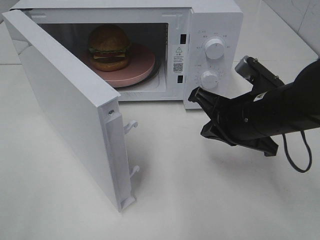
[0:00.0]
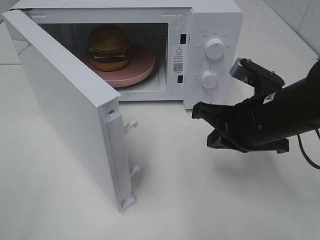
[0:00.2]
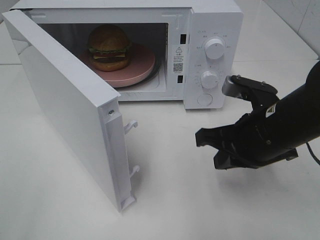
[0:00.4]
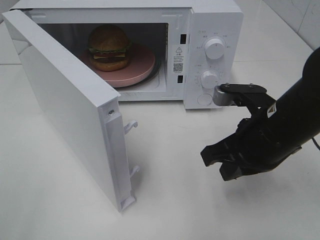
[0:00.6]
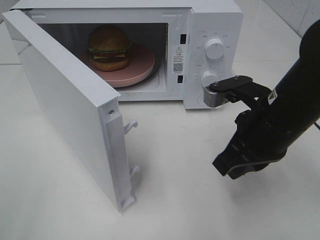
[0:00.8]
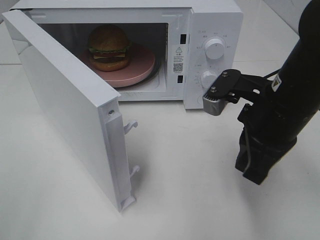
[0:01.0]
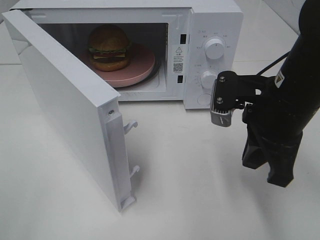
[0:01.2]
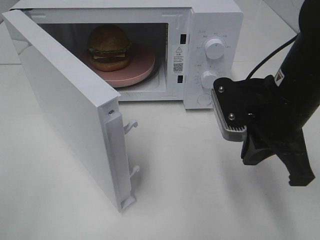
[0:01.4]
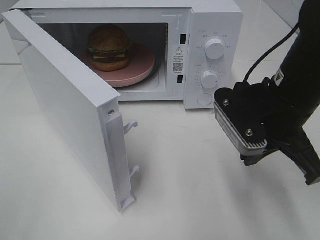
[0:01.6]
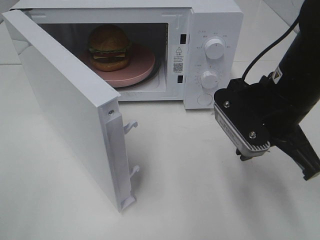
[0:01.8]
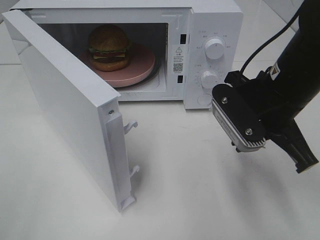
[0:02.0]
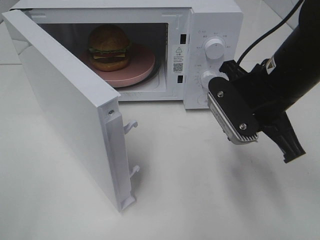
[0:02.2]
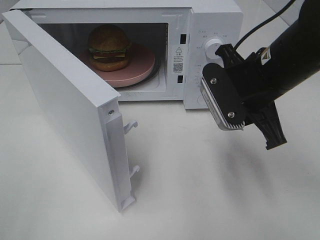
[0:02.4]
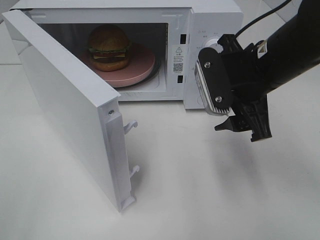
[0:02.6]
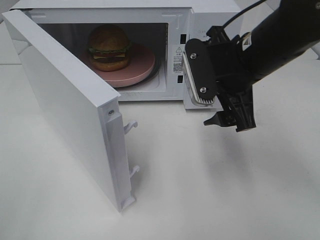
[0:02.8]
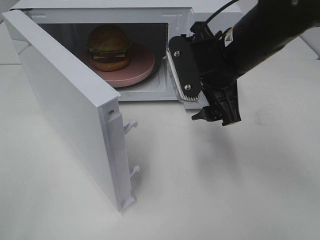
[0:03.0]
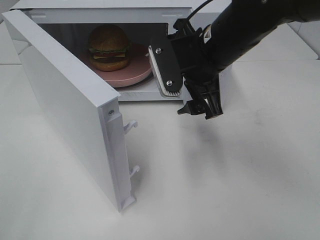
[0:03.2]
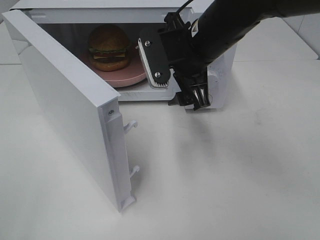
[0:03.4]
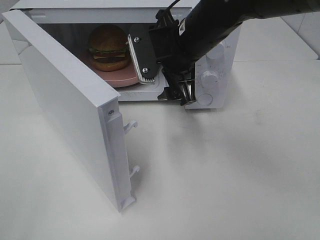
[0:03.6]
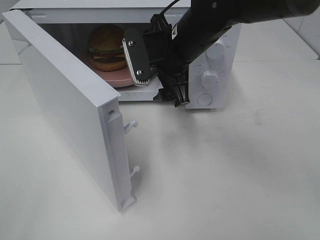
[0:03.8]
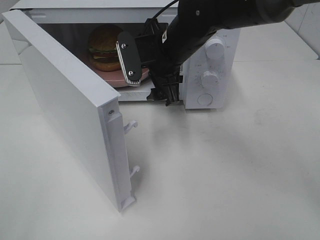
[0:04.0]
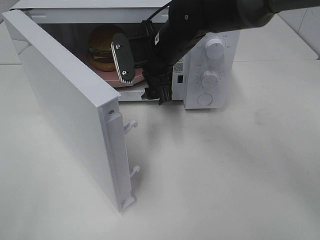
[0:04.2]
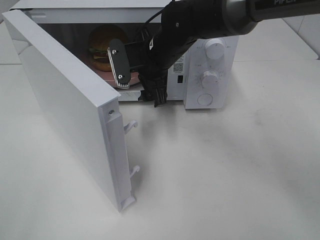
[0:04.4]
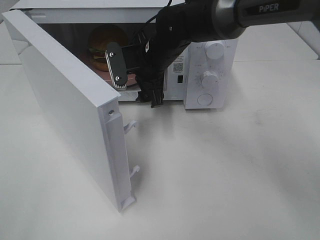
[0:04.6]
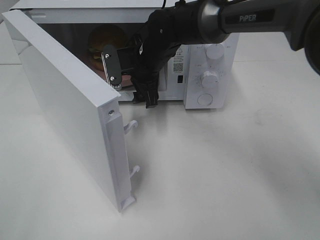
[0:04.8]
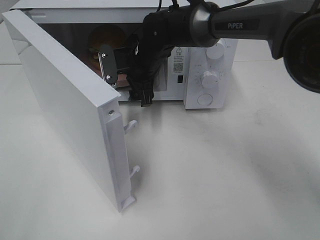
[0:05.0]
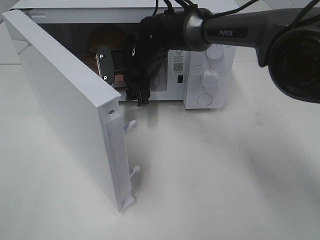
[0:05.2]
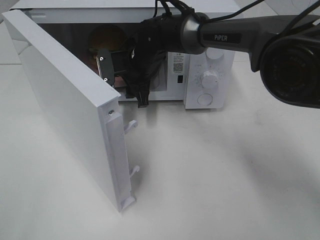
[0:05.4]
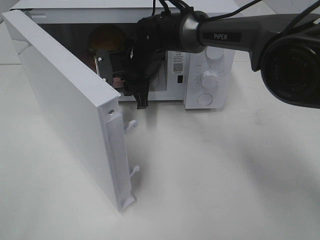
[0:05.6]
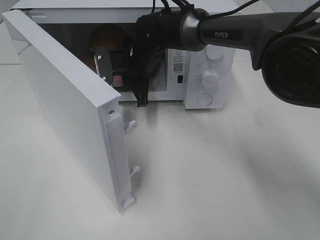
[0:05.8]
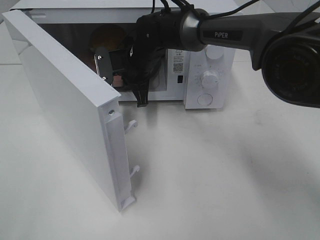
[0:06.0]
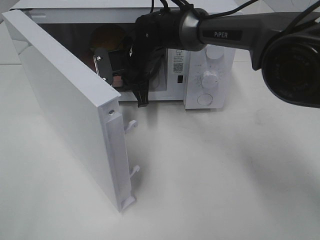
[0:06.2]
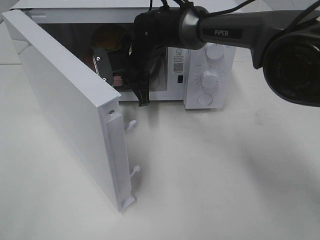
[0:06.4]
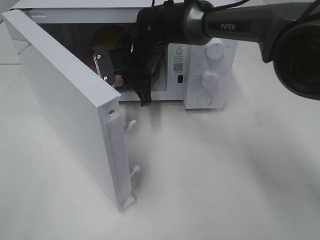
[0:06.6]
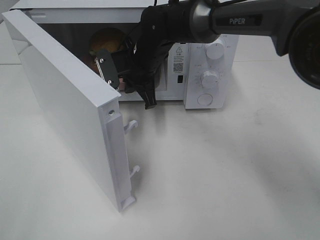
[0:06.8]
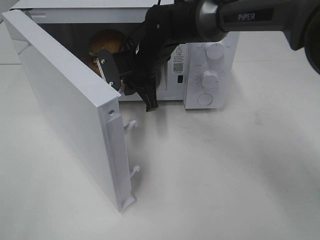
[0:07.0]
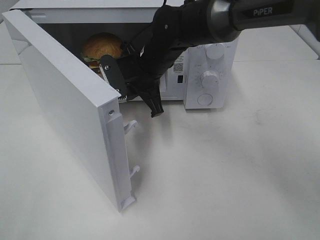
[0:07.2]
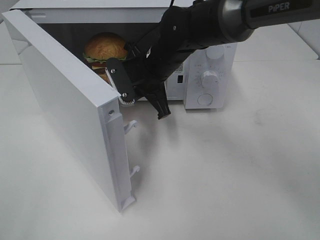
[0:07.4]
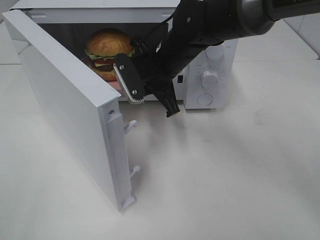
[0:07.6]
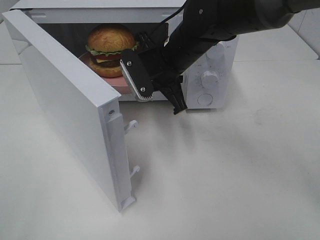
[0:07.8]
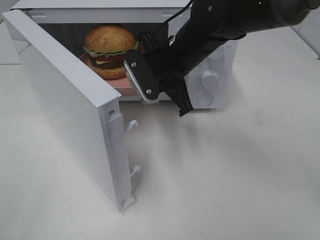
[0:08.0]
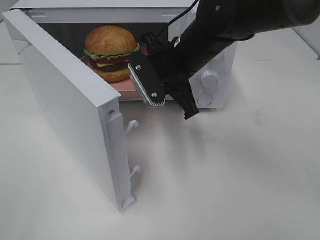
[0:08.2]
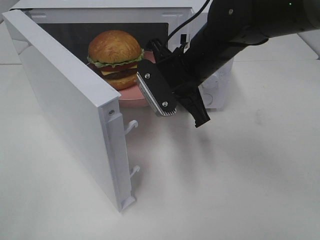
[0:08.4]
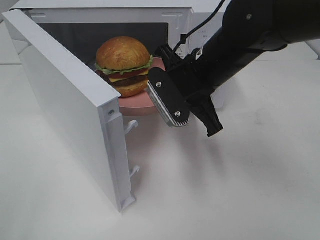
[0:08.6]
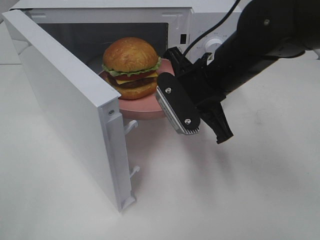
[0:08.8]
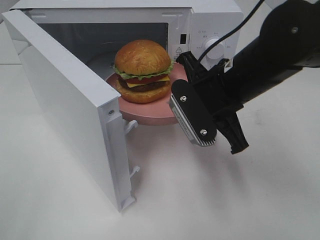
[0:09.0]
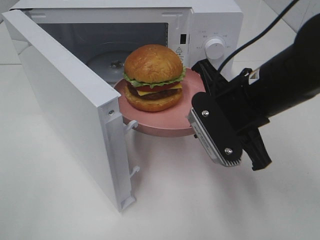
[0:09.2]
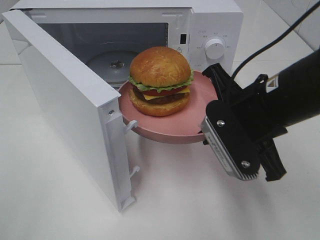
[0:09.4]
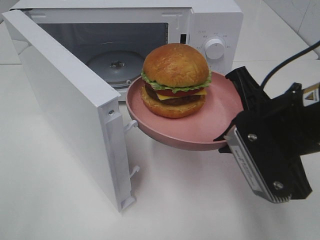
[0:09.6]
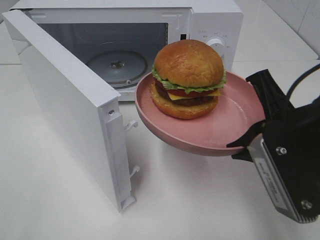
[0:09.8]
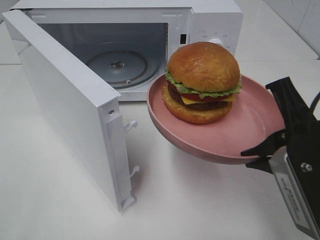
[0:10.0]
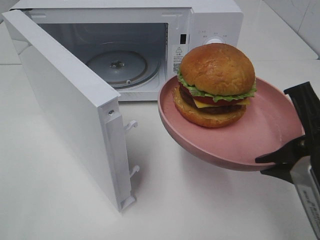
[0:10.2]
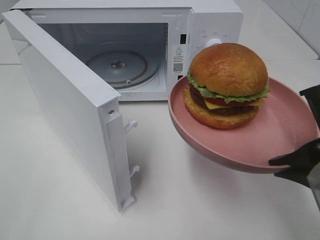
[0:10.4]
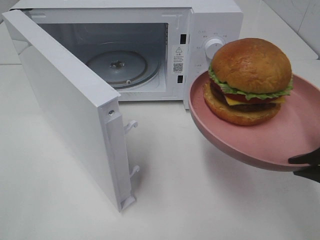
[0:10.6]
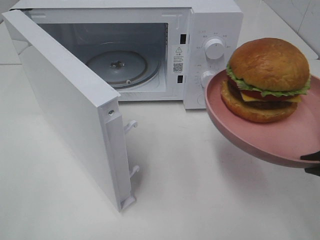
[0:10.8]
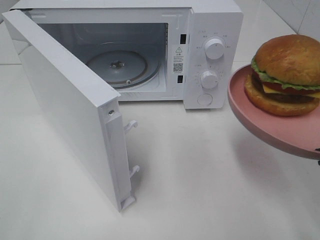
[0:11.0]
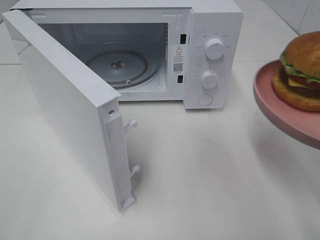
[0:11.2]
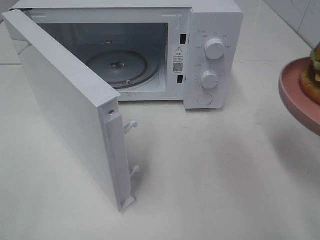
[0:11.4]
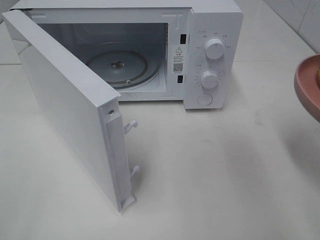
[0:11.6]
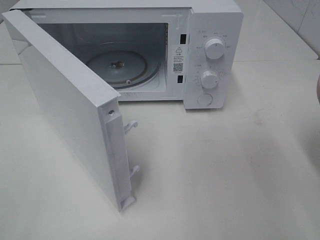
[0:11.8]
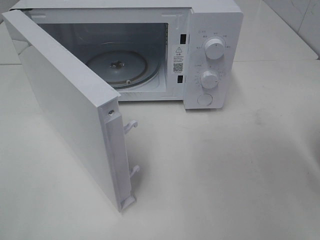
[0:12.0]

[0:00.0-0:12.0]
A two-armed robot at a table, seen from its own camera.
Task of the whole recording: Heat the burger.
Step, 0:00.0 to 0:05.6: Right hand: grab the plate with the hamburger.
0:01.6 to 0:03.0: The right gripper is displaced forward and to the left by some 10 cm, and opens up.
0:03.0 to 0:04.4: The right gripper heads forward, to the left and downward, covering approximately 15 cm.
0:04.4 to 0:06.0: The right gripper changes place by about 5 cm, and closes.
0:06.0 to 0:07.6: The right gripper shifts roughly 5 cm backward.
0:07.6 to 0:09.0: The right gripper moves backward and to the right, about 15 cm.
0:09.0 to 0:10.4: The right gripper travels backward and to the right by approximately 20 cm.
0:10.4 to 0:12.0: The right gripper travels to the right by some 5 cm.

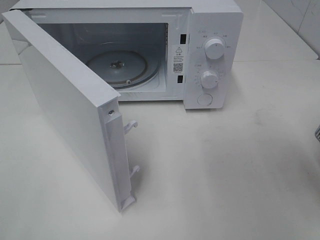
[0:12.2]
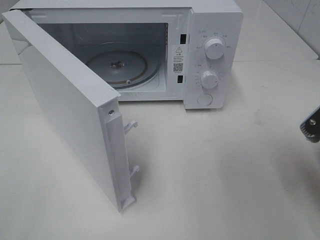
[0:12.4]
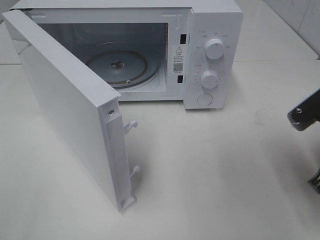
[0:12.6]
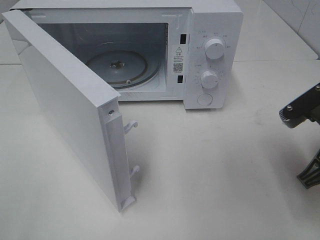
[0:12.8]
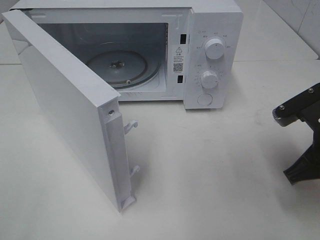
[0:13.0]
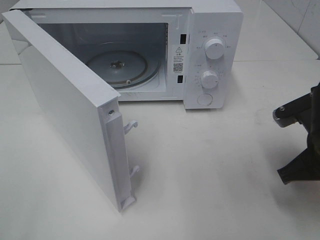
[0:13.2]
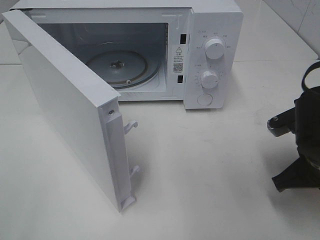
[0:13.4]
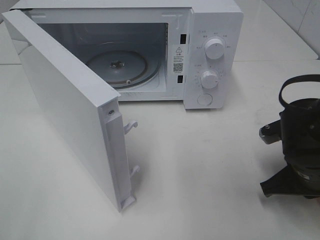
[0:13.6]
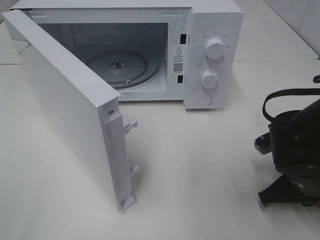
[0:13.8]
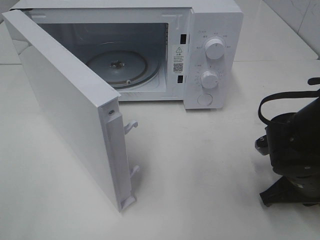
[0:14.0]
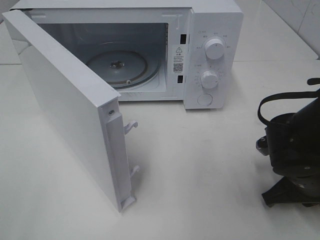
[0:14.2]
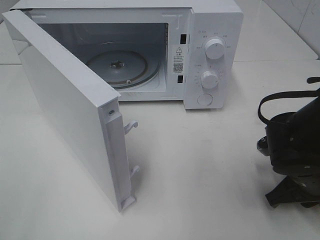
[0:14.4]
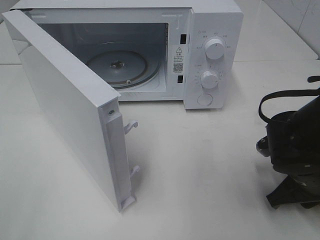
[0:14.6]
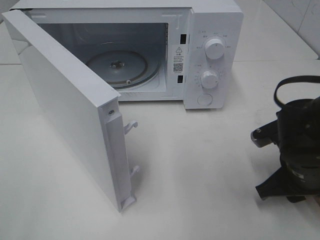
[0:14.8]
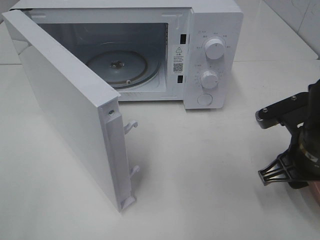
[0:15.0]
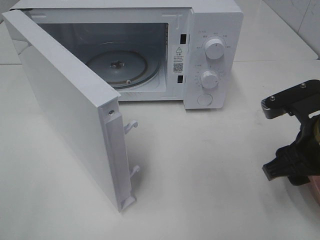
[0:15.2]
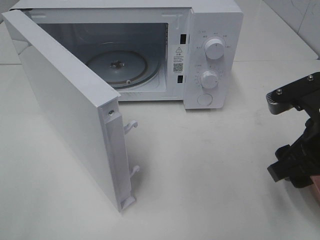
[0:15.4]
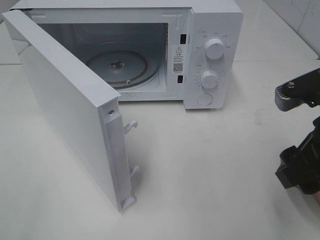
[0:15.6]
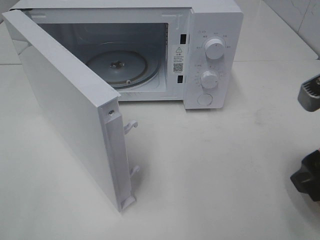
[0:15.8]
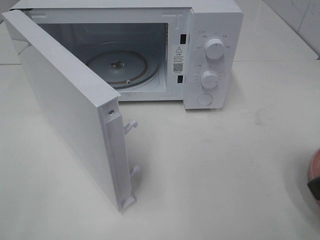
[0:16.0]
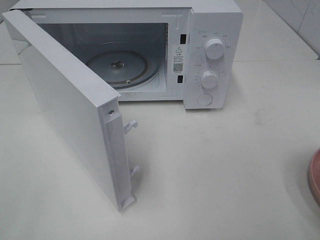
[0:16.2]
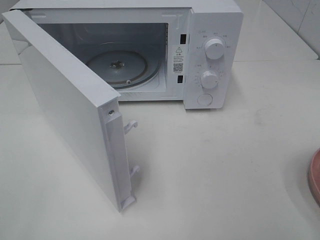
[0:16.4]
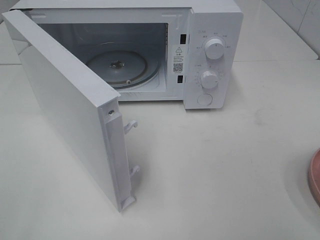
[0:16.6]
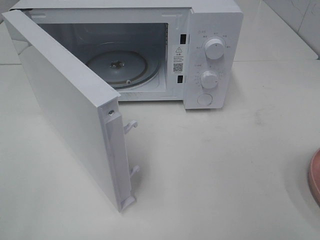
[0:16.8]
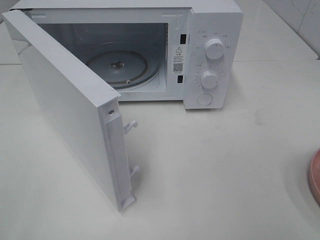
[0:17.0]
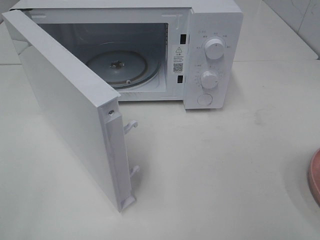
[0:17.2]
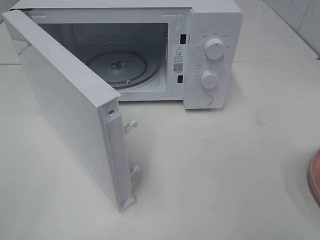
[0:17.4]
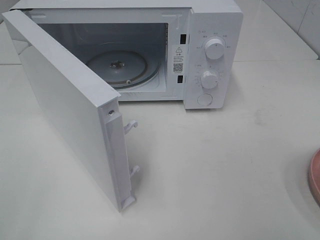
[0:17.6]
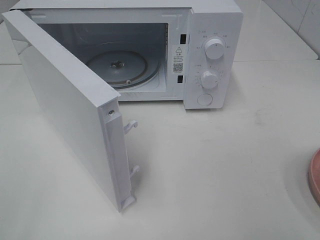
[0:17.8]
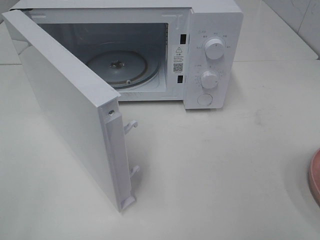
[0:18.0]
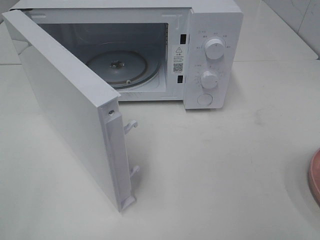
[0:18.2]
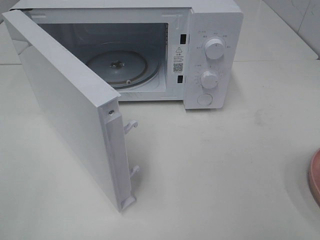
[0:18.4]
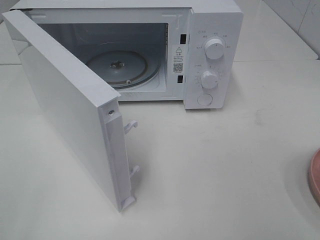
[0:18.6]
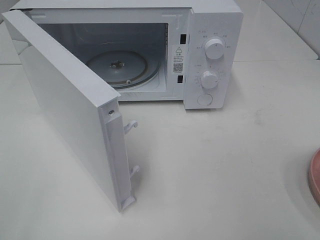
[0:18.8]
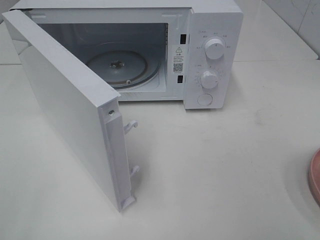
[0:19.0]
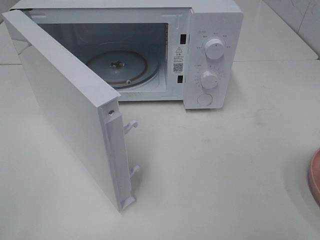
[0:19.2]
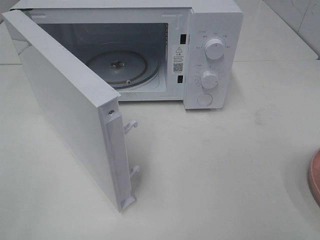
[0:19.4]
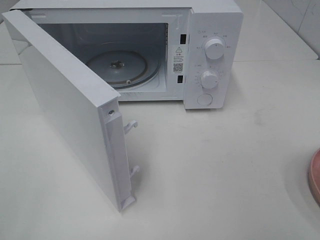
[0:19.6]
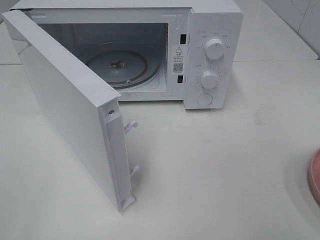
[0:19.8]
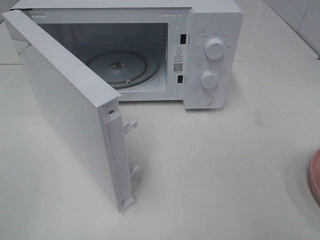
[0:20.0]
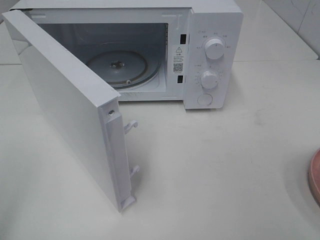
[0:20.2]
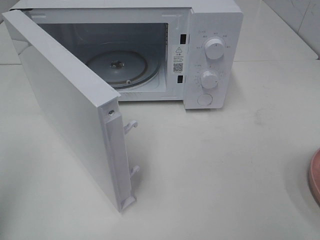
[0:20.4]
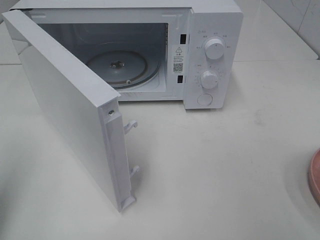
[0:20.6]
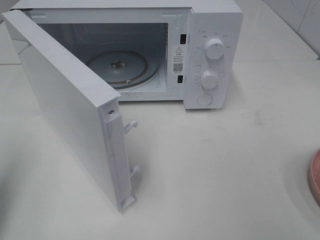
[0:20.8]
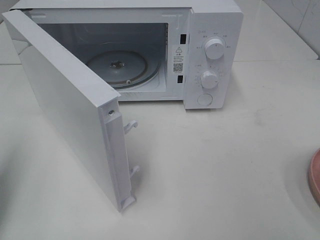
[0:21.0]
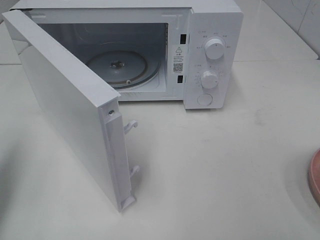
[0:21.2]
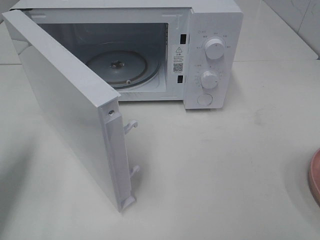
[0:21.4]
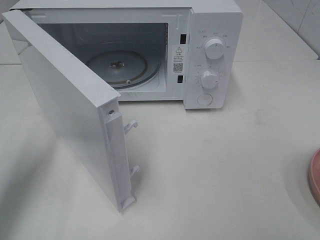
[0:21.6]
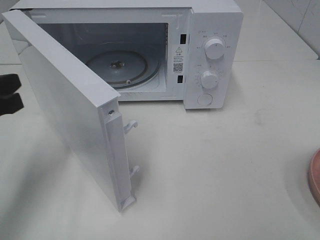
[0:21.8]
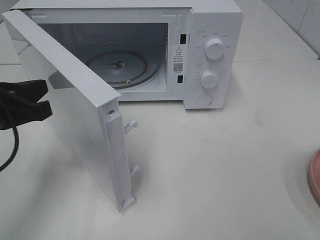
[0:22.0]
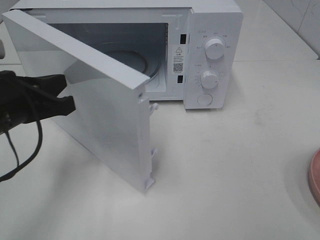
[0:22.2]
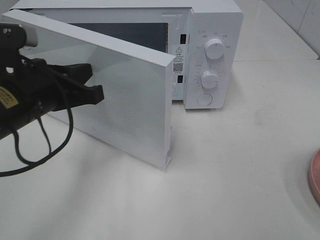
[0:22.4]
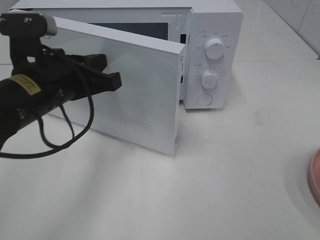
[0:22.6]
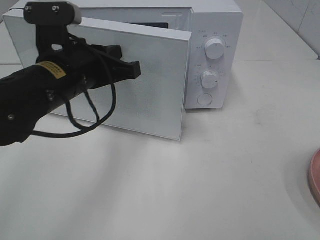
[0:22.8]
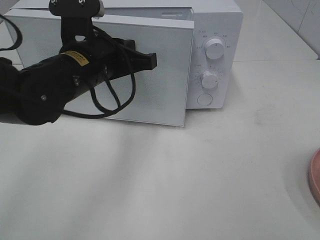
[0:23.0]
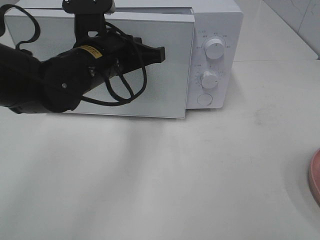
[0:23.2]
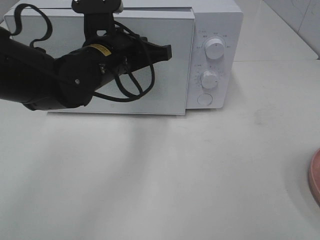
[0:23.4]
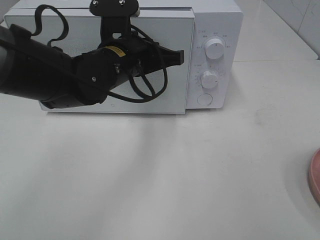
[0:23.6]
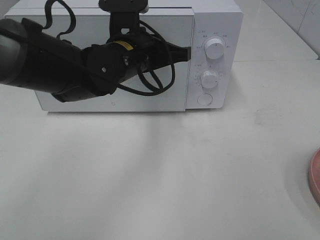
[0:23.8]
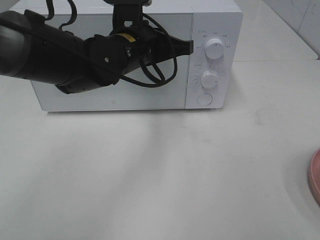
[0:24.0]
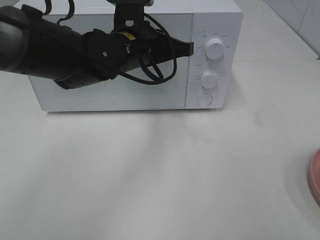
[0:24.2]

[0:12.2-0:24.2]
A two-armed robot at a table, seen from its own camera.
Task of the whole recording: Heat the burger.
Step, 0:12.2 to 0:14.6: Right hand: place the plate on the table.
0:12.2 to 0:13.8: The right gripper travels downward and forward by roughly 15 cm.
0:13.8 to 0:15.2: The right gripper is displaced upward by some 10 cm, and opens its fingers.
0:15.2 to 0:16.6: The right gripper moves backward, upward and to the right, about 20 cm.
0:19.8 to 0:21.2: The left gripper shifts about 20 cm forward, and closes up.
0:21.2 to 0:22.6: The left gripper travels to the right by about 20 cm.
0:22.6 to 0:24.2: The left gripper heads to the right and forward, covering about 15 cm.
